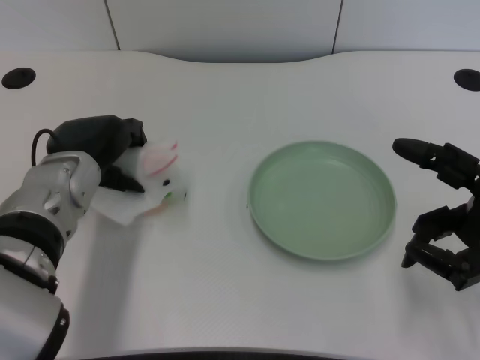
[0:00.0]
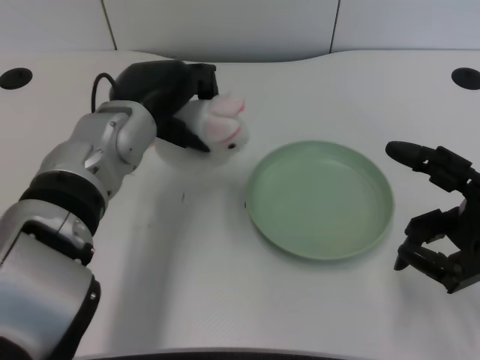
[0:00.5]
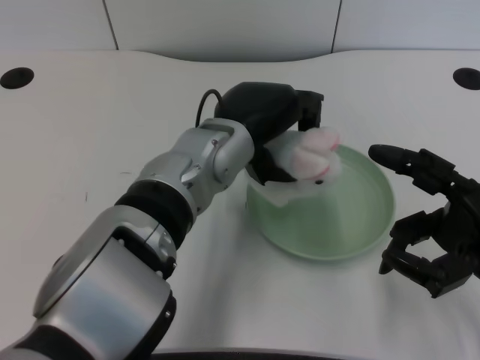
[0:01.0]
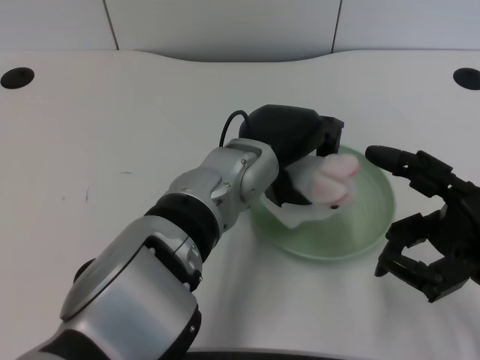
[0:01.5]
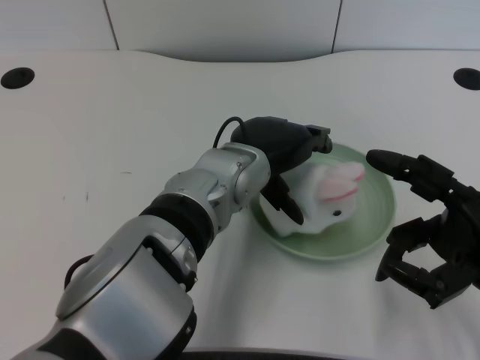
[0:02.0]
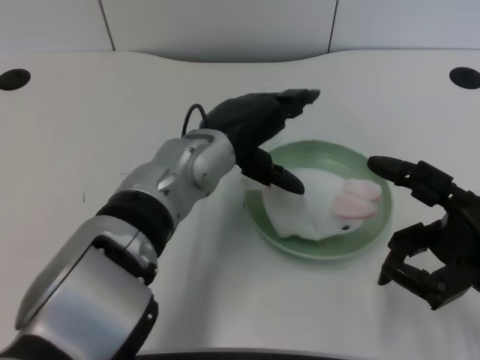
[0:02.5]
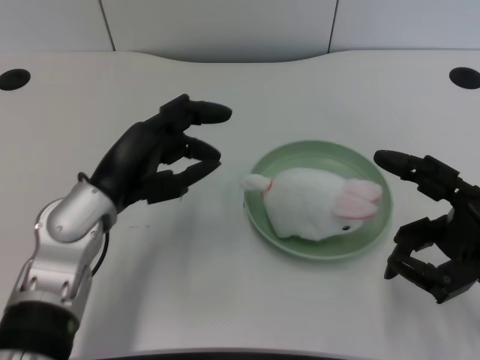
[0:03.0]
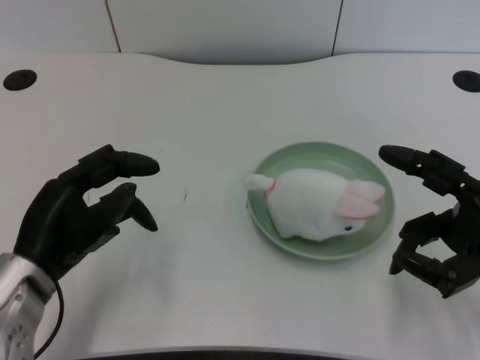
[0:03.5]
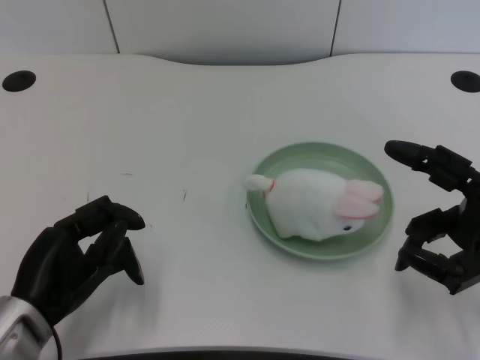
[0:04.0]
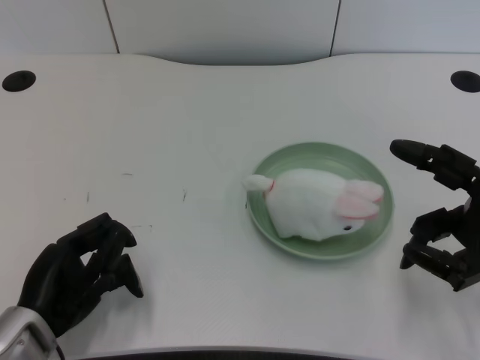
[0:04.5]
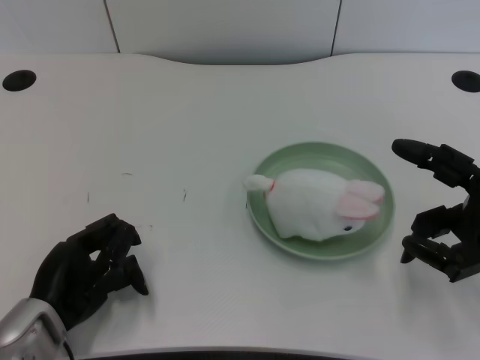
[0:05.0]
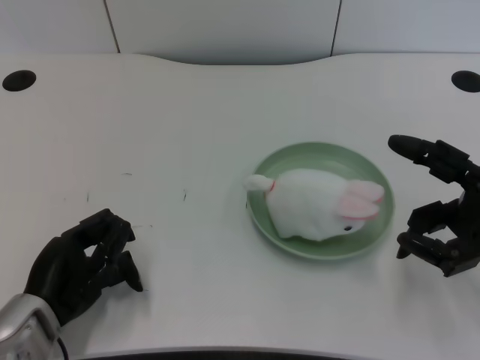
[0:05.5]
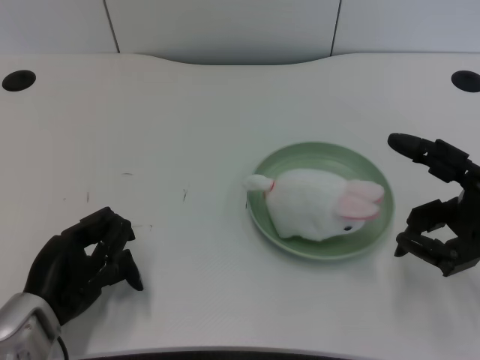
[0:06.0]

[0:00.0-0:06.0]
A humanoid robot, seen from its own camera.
Task of the whole recording: pick up the rabbit doll from the table and place it on the plate.
Step, 0:00.5 to 0:02.0: Place the rabbit doll into the plate with the left gripper.
0:00.0 to 0:02.0: The left hand shifts approximately 15 cm to the right.
0:02.0 to 0:04.0: The left hand is displaced to the left and backward by roughly 25 cm.
0:04.0 to 0:06.0: The hands make only small movements.
